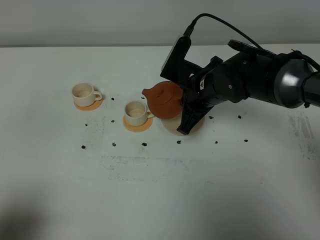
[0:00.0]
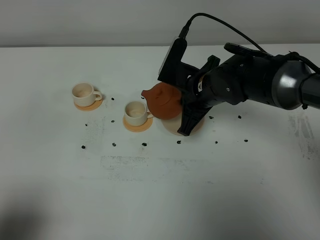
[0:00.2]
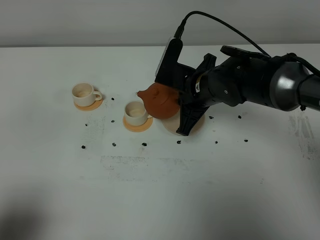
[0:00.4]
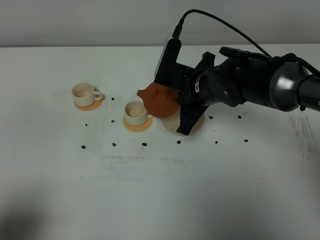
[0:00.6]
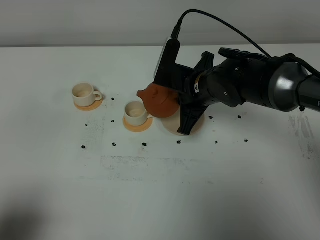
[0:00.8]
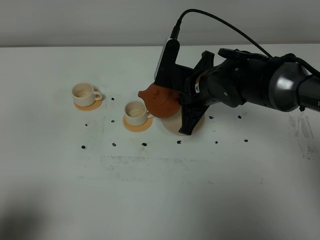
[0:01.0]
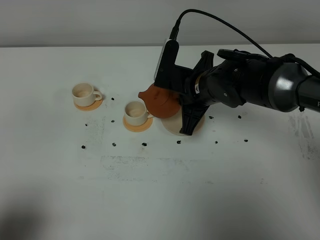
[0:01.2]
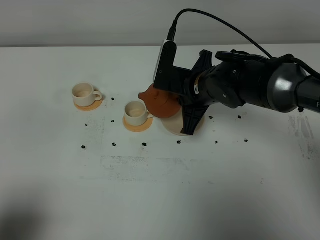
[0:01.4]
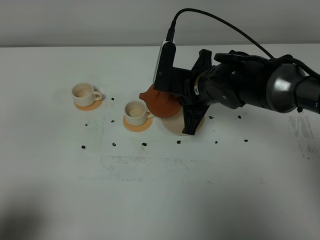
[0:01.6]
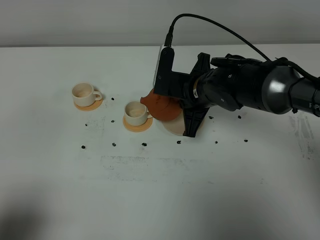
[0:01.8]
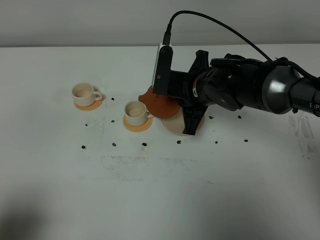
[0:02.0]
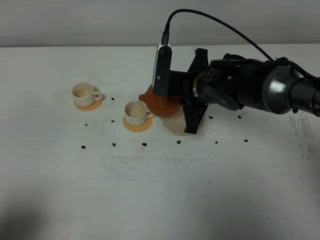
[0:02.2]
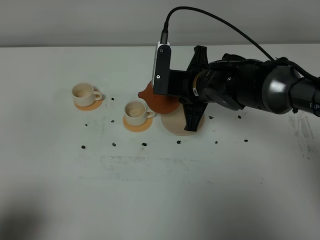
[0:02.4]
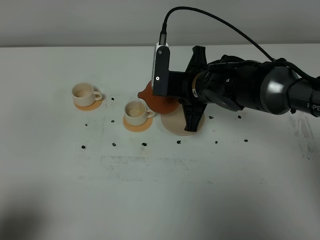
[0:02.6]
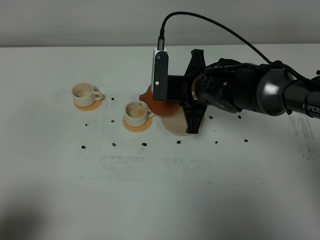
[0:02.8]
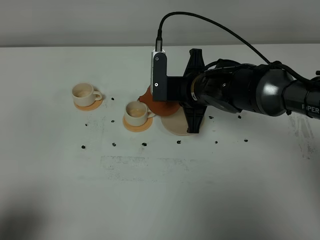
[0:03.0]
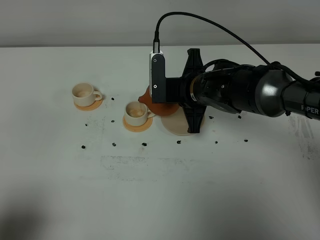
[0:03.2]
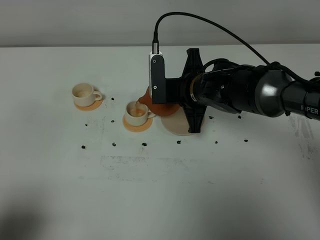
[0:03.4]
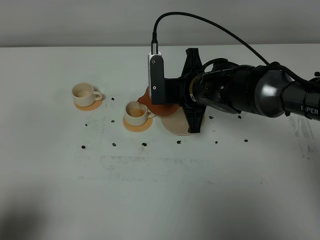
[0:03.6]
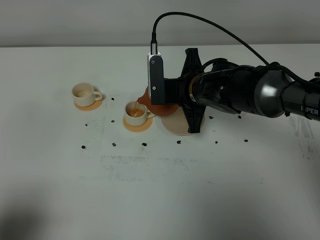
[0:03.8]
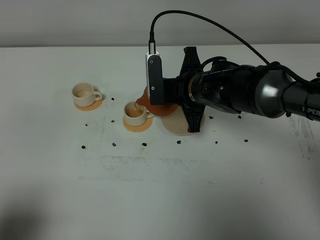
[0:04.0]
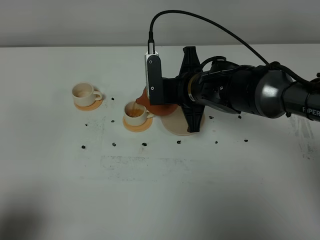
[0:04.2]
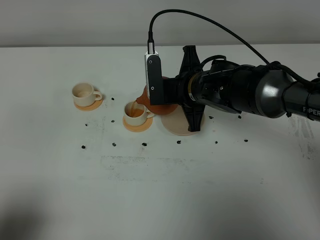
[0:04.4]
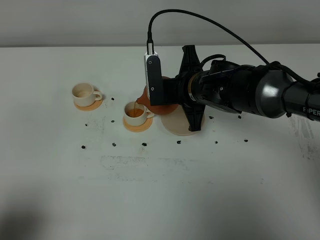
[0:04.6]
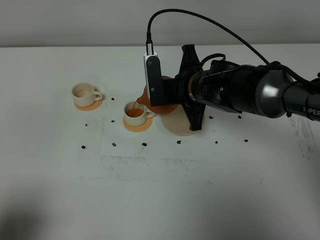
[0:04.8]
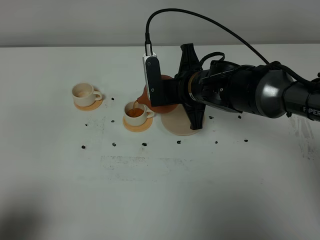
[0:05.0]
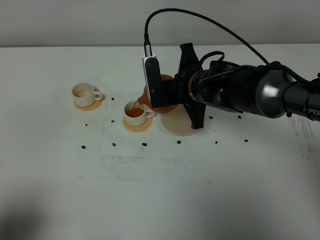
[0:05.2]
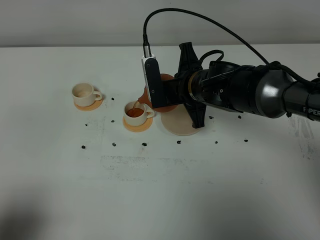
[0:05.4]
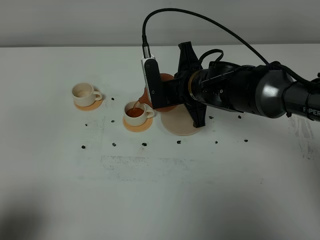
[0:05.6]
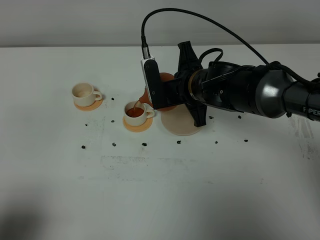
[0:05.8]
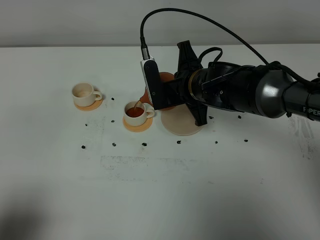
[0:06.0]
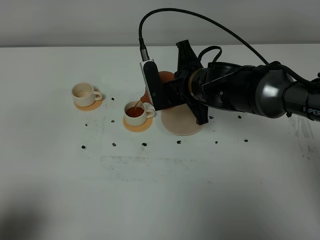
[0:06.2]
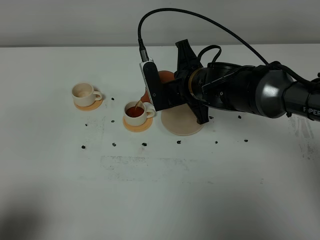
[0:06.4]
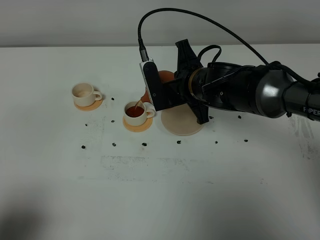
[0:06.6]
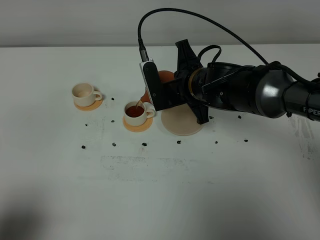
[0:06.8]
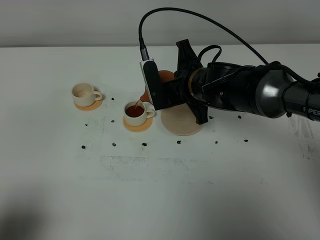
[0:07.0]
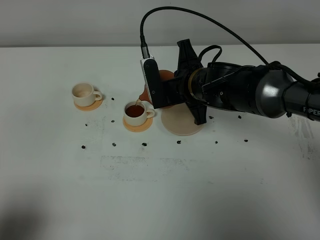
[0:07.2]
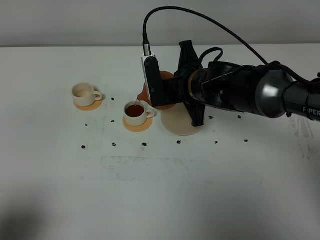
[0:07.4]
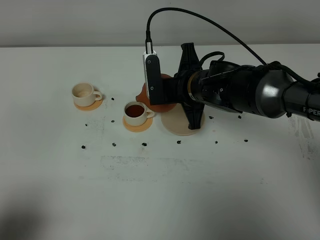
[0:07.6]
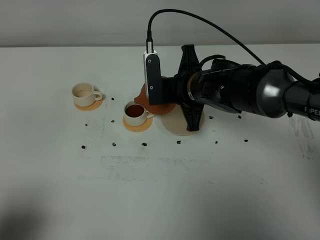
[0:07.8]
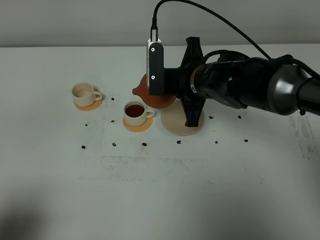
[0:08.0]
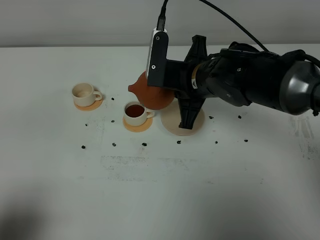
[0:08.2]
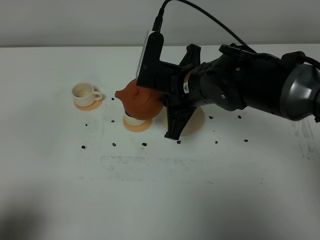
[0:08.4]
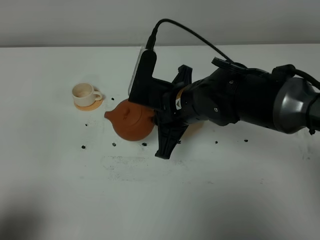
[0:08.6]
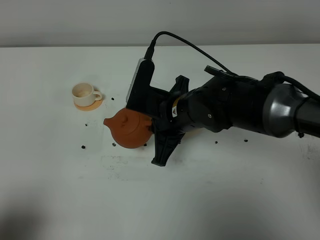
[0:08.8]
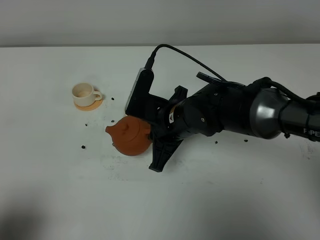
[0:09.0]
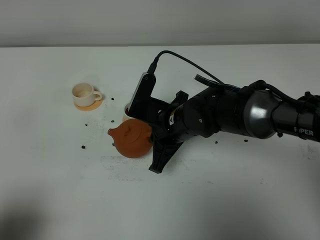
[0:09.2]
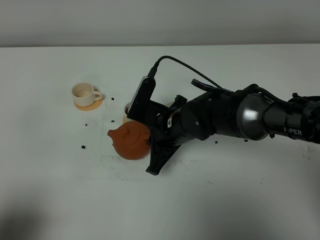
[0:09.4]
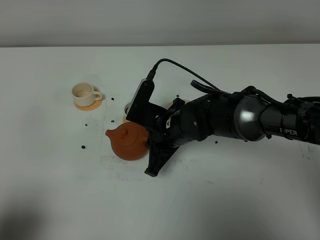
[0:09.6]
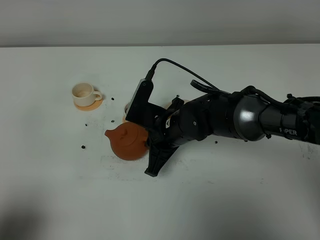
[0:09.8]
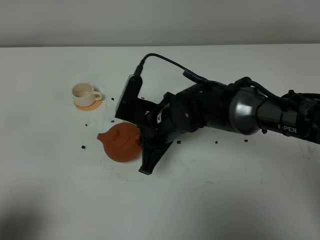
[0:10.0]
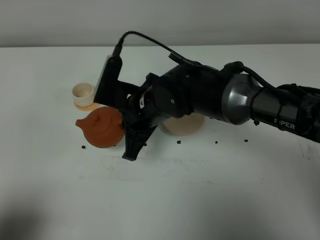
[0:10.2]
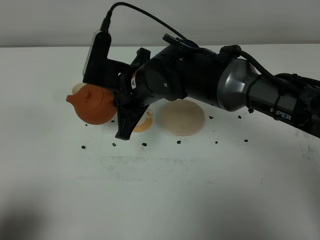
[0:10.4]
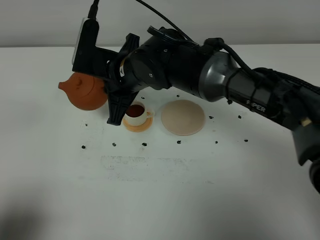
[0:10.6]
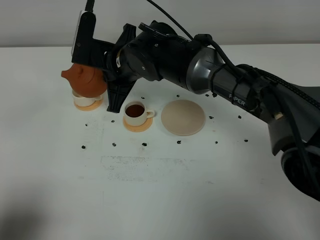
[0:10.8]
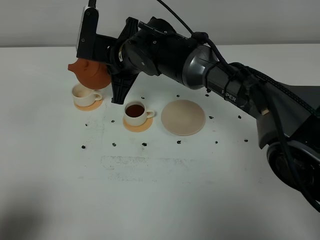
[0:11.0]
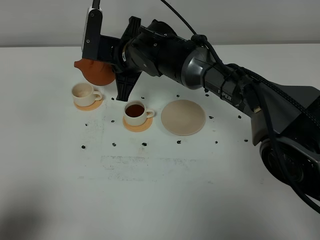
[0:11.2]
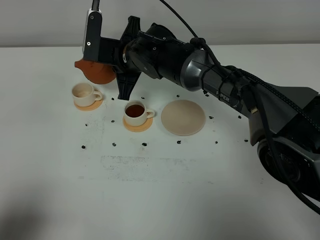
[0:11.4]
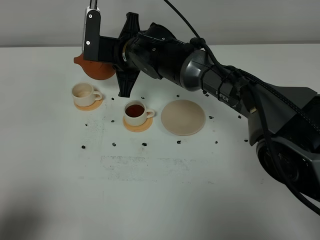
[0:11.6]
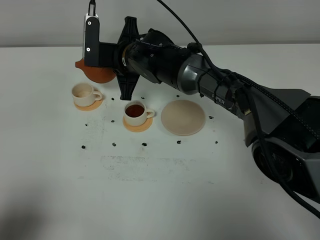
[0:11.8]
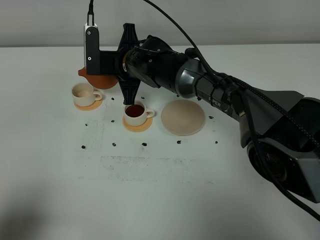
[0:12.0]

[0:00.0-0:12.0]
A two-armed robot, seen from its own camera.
Task of the whole recording: grasp the brown teapot and pour the tea into the two white teacups one by one, put the brown teapot back in its original place.
0:00.0 to 0:01.6: The grippers move only a little.
0:01.6 to 0:04.4: The grippers stay close to where they were, moving slightly.
0:04.4 to 0:07.6: The grippers make only small movements.
0:07.6 to 0:09.0: The right gripper goes approximately 5 cm backward.
0:09.0 to 0:10.4: The right gripper travels upward and to the left by roughly 10 cm.
0:10.4 to 0:12.0: The right gripper goes some 10 cm forward and downward.

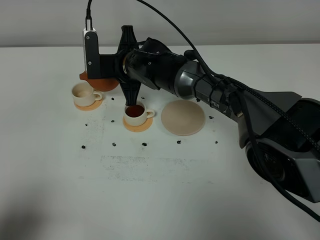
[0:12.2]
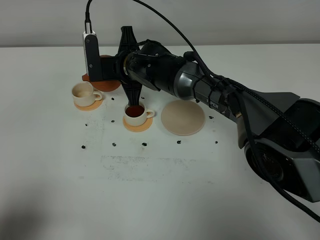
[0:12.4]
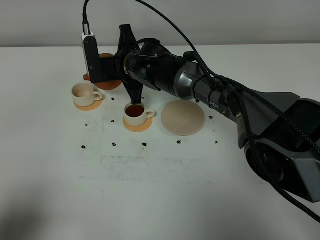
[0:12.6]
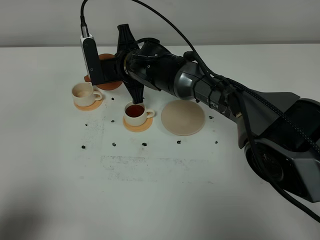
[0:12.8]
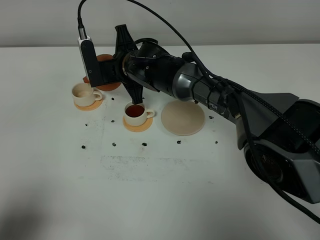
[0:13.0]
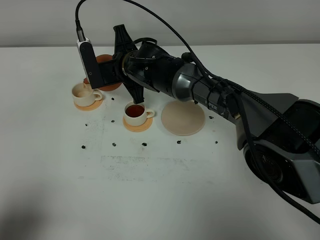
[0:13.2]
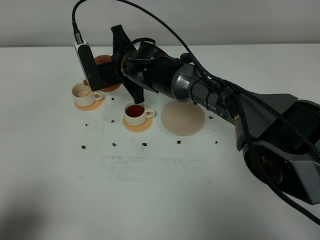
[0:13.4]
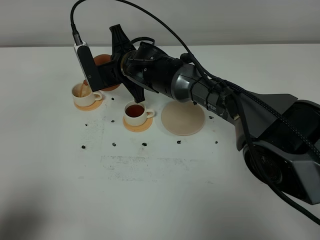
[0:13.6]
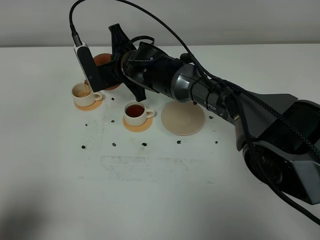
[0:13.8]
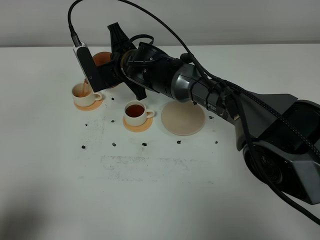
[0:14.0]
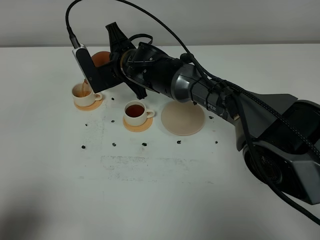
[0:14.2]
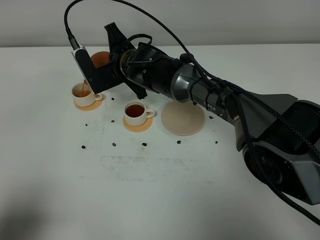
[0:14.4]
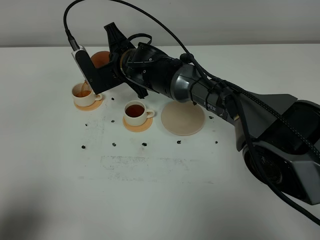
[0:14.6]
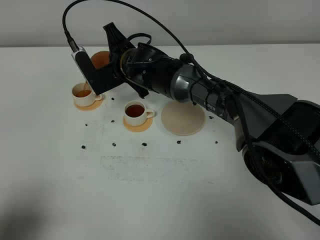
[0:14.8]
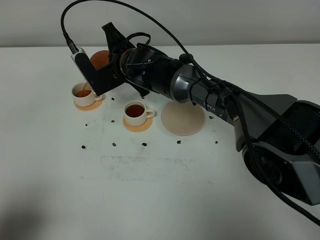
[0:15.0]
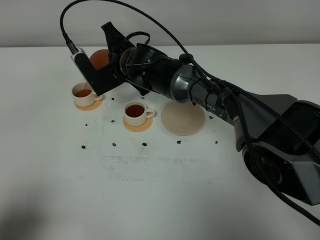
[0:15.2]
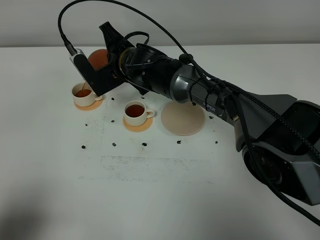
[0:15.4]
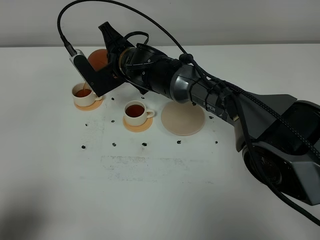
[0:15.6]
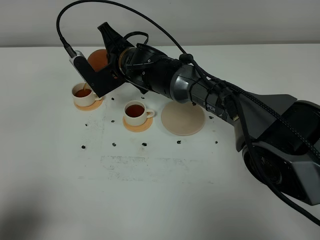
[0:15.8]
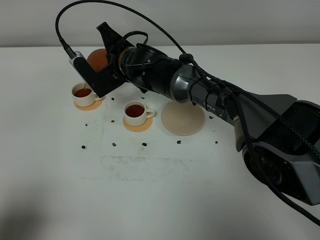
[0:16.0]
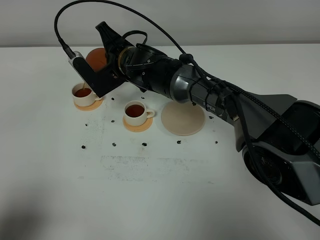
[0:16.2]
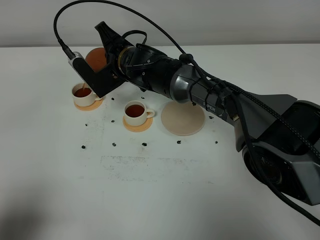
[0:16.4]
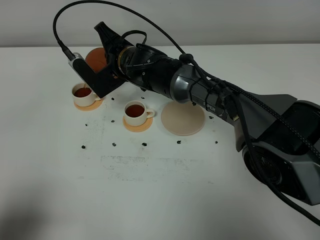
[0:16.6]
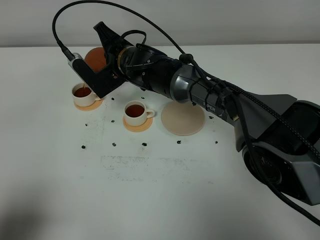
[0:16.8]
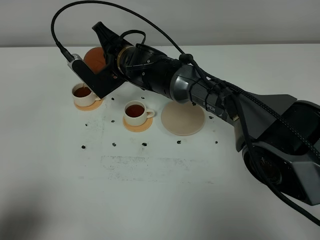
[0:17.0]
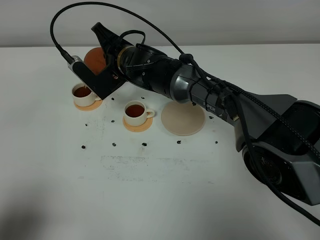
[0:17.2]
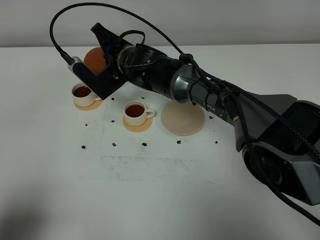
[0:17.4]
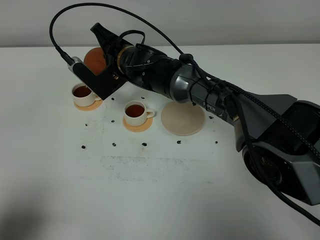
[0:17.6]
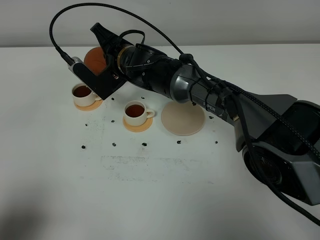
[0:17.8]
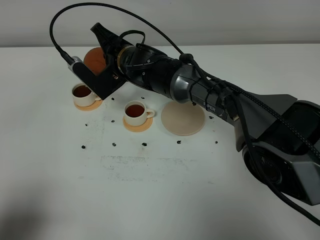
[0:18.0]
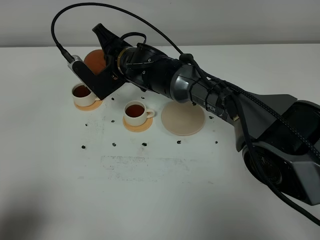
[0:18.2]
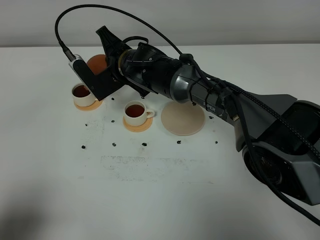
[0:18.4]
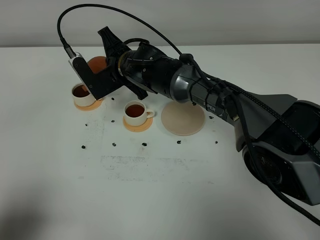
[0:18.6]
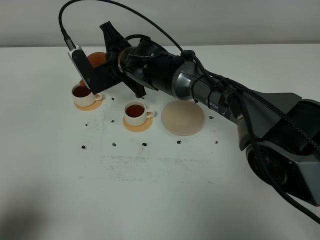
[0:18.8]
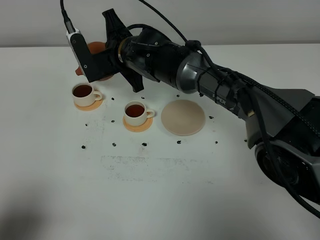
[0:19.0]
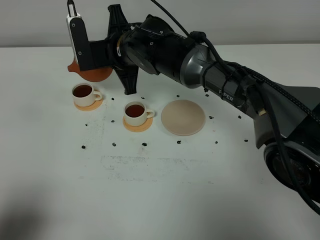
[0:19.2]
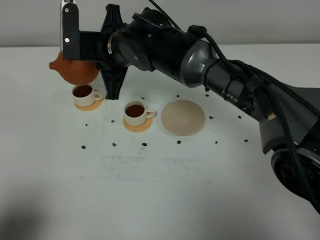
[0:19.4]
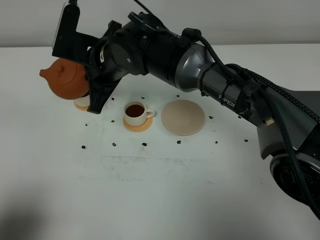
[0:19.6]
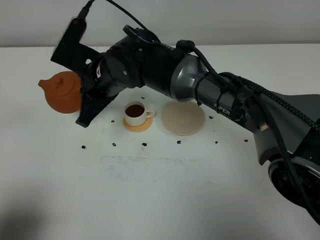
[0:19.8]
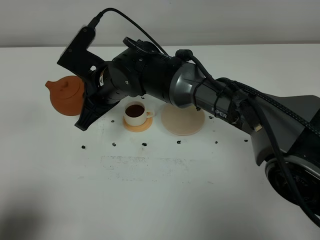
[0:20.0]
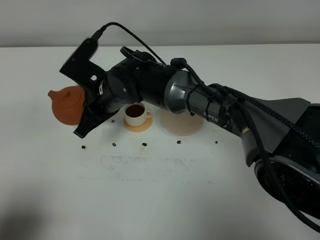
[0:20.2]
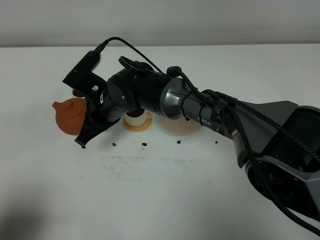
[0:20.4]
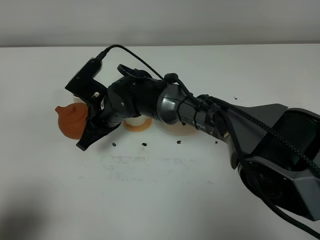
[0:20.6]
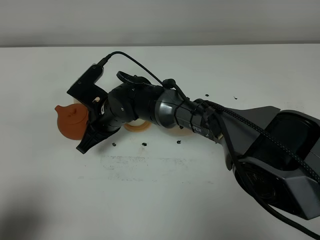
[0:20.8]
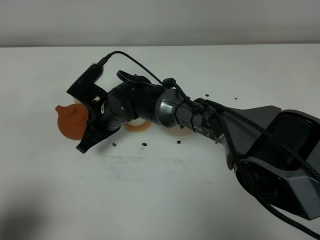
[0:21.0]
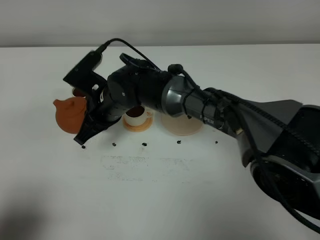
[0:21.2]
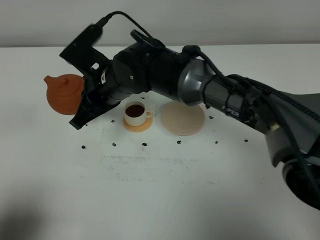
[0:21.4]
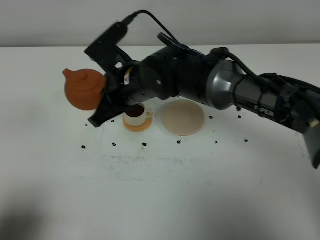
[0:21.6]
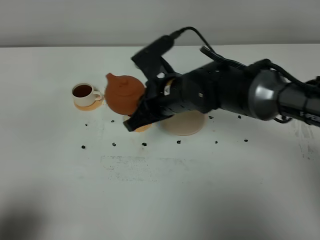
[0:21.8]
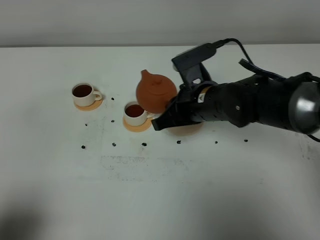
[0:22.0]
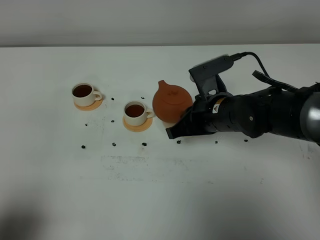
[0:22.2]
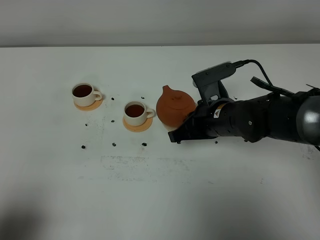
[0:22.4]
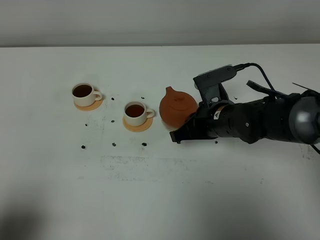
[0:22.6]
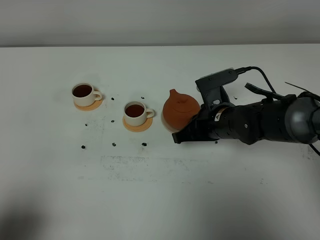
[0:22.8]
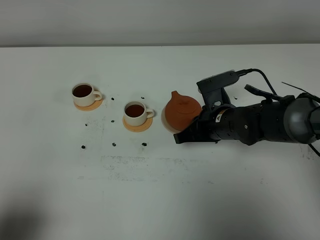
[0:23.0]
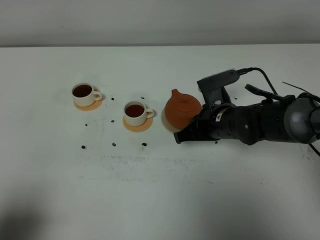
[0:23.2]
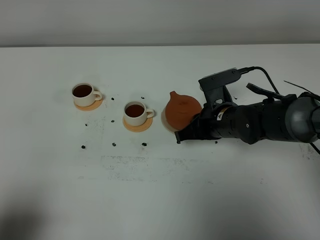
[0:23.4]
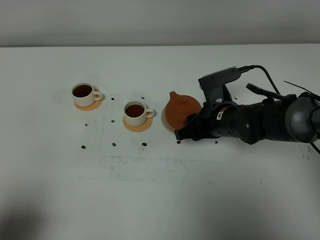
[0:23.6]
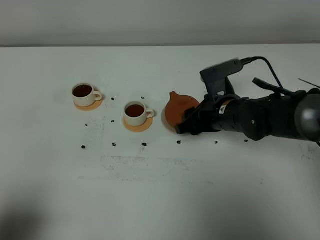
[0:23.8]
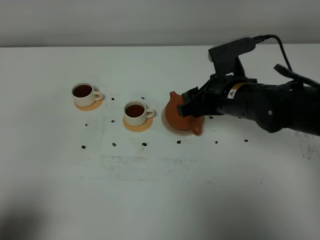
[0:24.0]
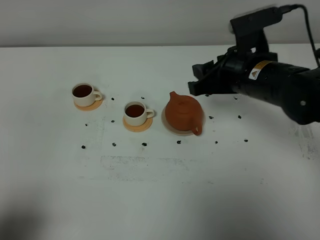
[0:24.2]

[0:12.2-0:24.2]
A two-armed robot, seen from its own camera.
Task of the whole recording: grasp the brown teapot and pour the tea into the two white teacups one by one, put the brown teapot back in its original place.
Step, 0:12.2 to 0:18.8: Pour tea into the teacup with the right gripper.
0:12.2 to 0:13.8: The grippers move only a little.
0:13.8 to 0:16.6: The grippers make only small movements.
0:16.6 to 0:18.2: The grippers move only a little.
0:18.2 to 0:19.8: The right gripper is displaced backward by about 10 cm.
0:21.2 to 0:22.6: The right gripper heads to the right, covering approximately 20 cm.
0:22.6 to 0:24.2: The right gripper goes about 15 cm upward, and opens its fingers.
